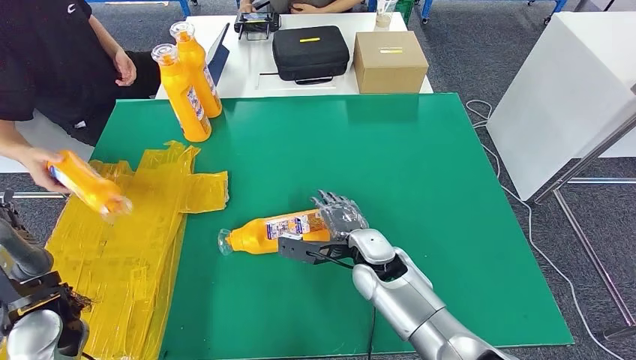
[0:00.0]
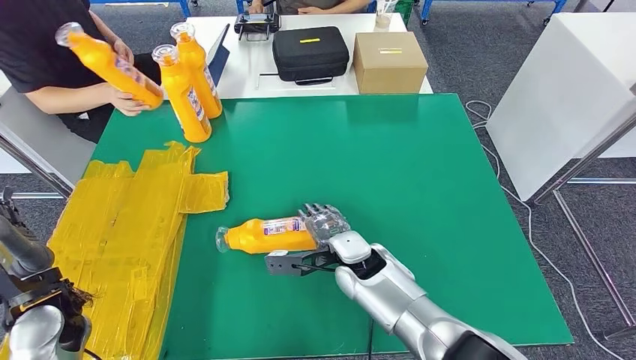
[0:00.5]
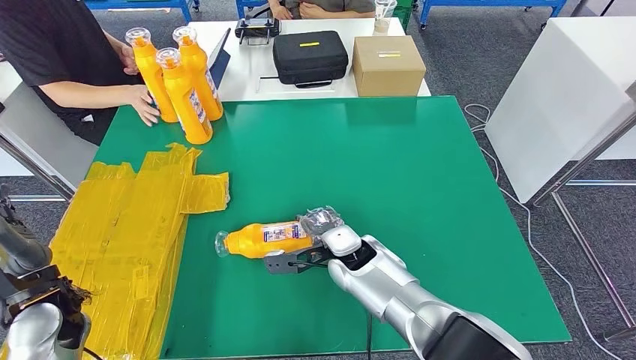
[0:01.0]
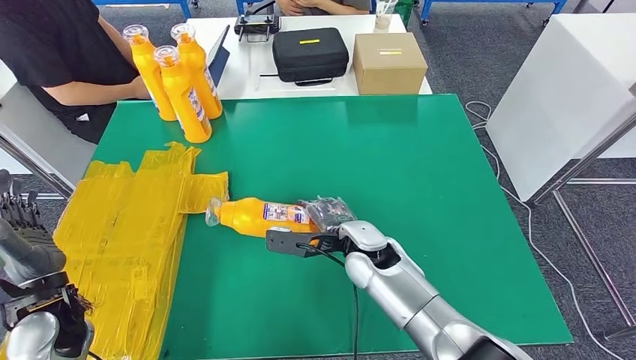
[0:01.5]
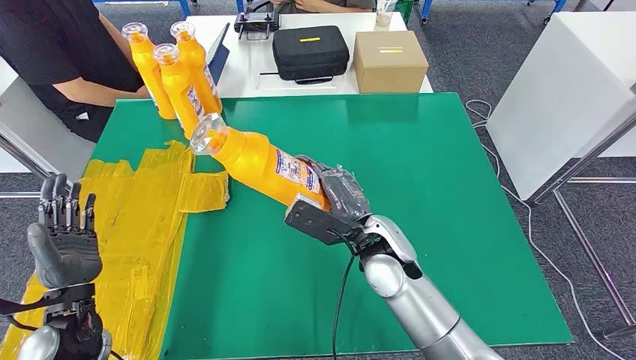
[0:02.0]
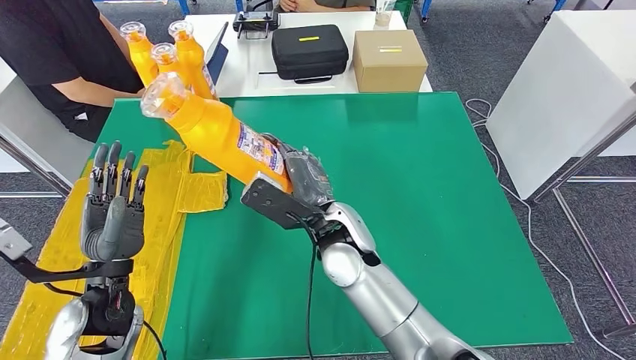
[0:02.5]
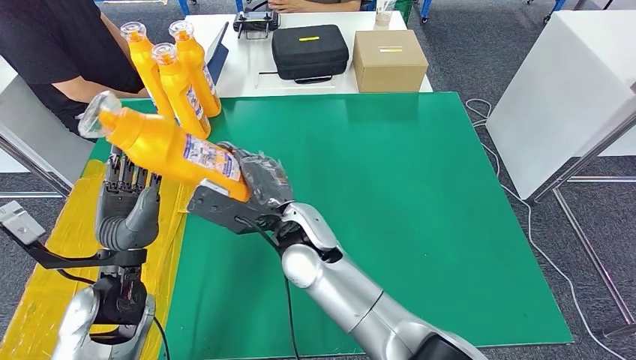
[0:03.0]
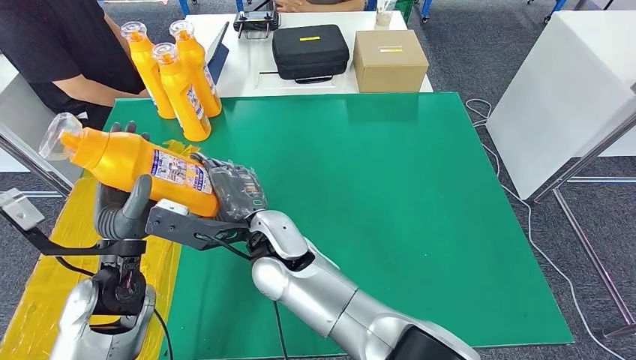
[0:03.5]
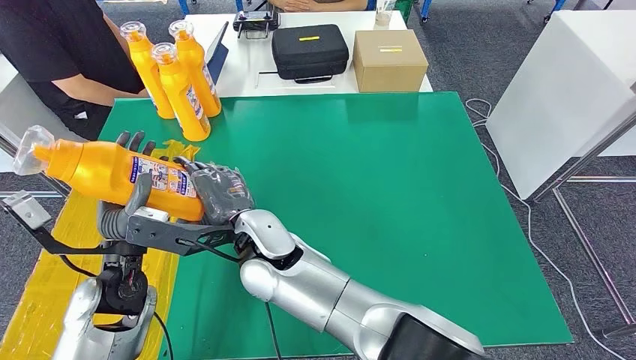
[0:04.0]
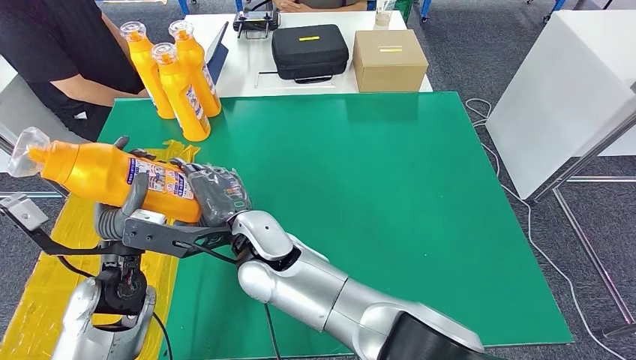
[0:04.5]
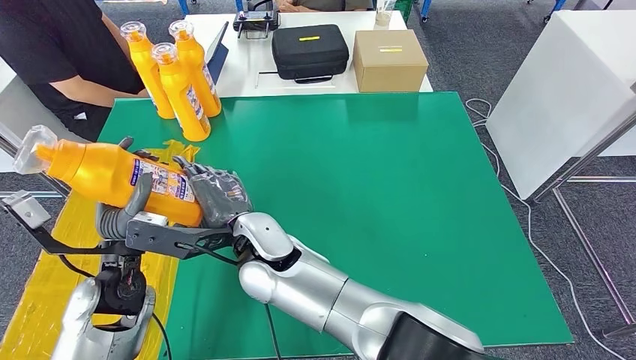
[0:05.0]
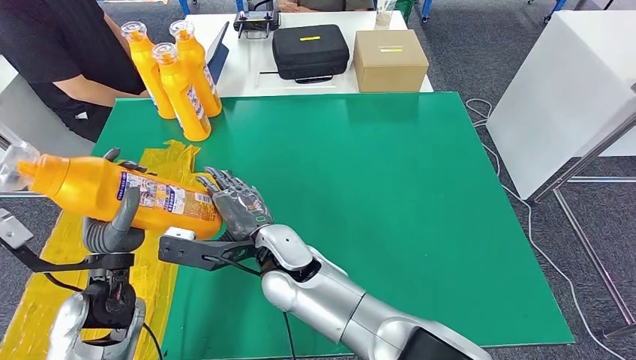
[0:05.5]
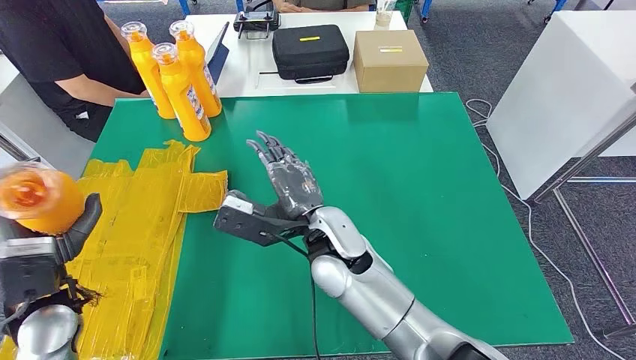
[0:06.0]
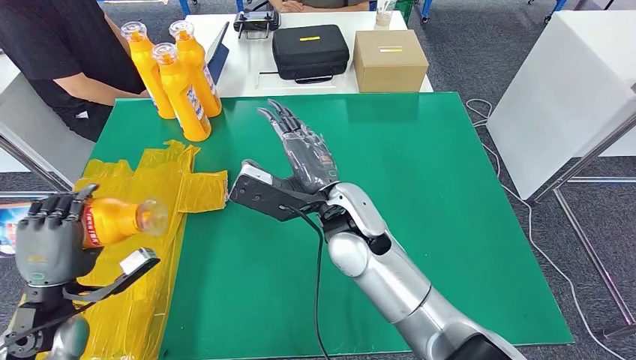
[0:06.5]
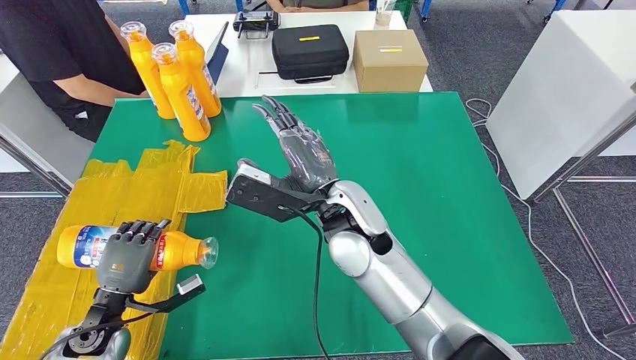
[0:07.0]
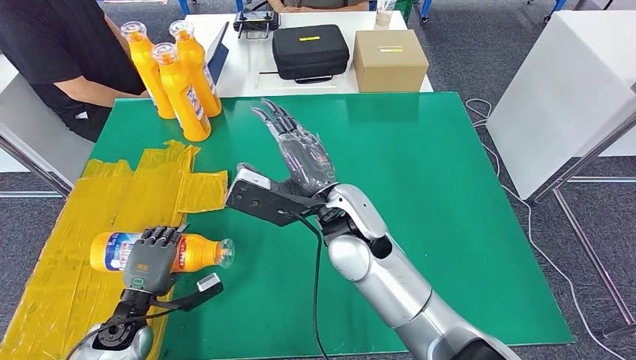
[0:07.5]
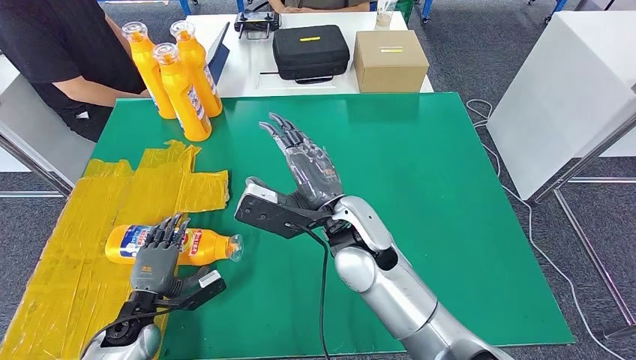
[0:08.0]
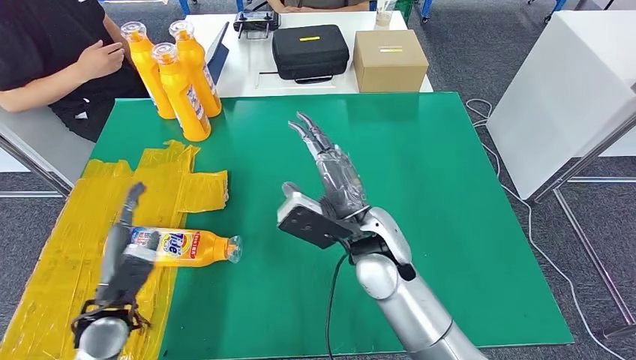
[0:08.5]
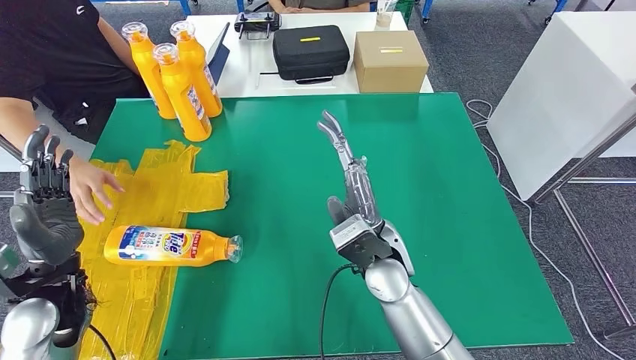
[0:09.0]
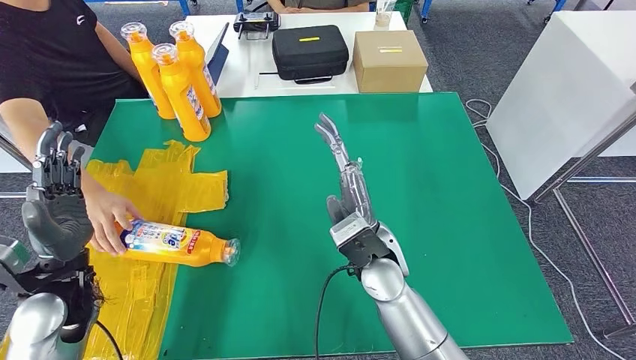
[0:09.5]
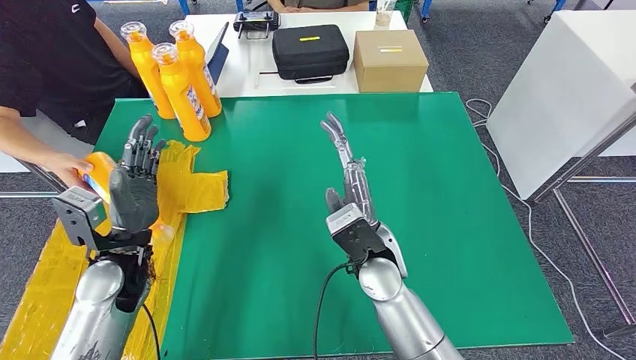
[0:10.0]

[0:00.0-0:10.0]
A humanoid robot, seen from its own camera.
Step, 0:00.0 to 0:05.0: Pick up the bottle from the table.
Step, 0:05.5 to 0:10.0: Flip the bottle to face forward.
0:06.0 to 0:08.0: The left hand heads downward, covering about 15 cm.
